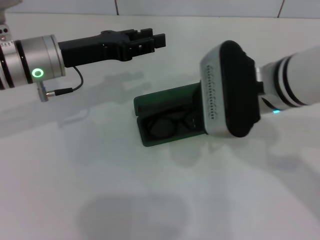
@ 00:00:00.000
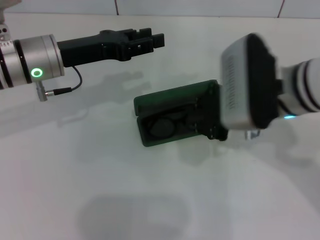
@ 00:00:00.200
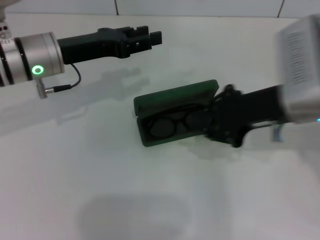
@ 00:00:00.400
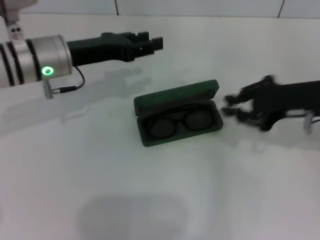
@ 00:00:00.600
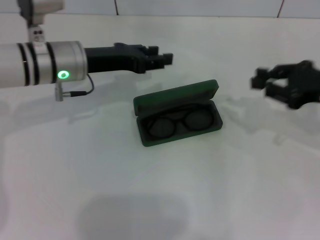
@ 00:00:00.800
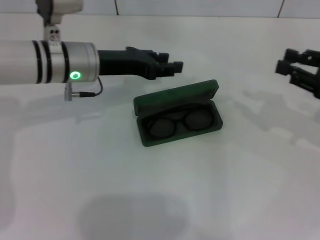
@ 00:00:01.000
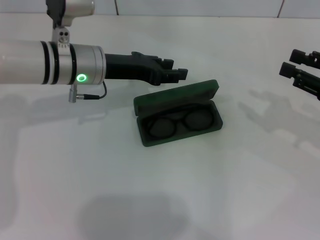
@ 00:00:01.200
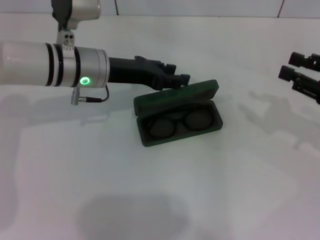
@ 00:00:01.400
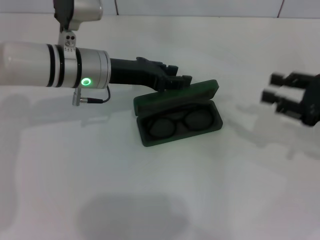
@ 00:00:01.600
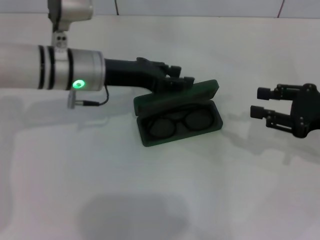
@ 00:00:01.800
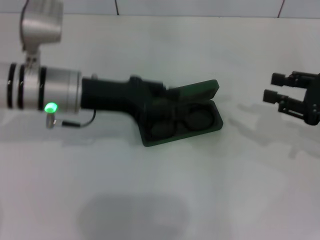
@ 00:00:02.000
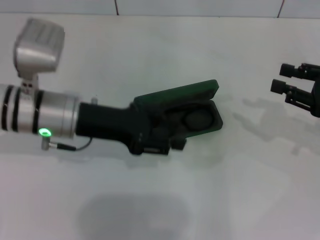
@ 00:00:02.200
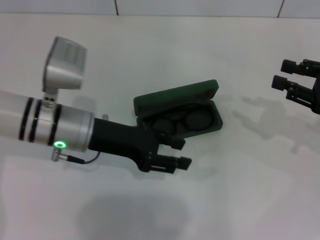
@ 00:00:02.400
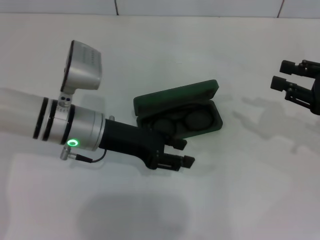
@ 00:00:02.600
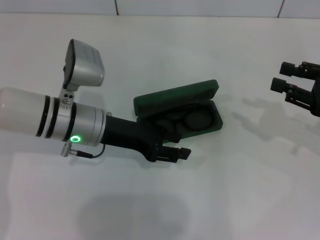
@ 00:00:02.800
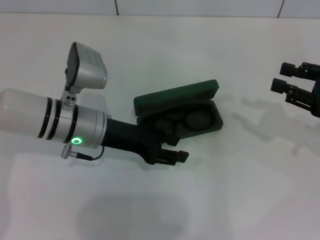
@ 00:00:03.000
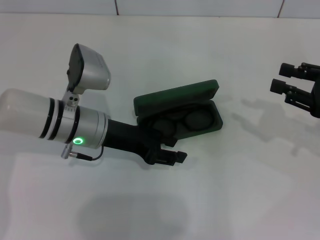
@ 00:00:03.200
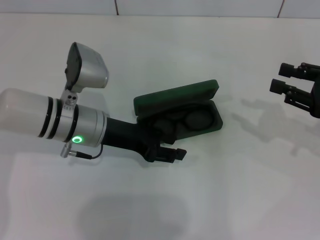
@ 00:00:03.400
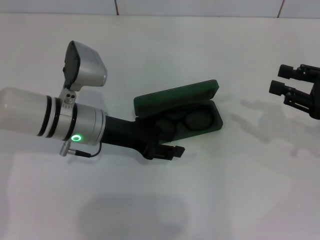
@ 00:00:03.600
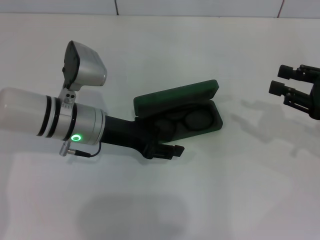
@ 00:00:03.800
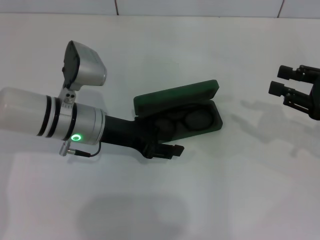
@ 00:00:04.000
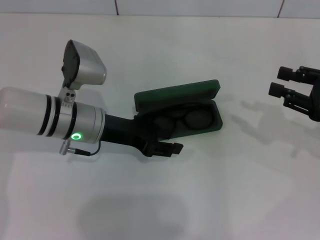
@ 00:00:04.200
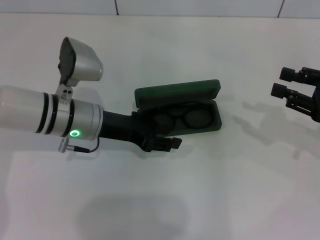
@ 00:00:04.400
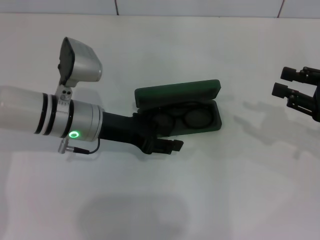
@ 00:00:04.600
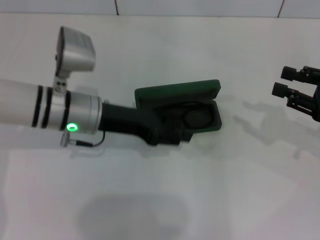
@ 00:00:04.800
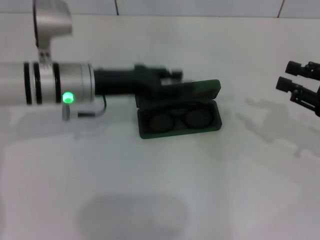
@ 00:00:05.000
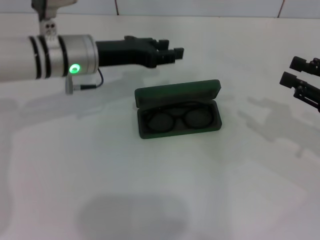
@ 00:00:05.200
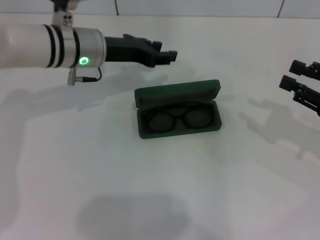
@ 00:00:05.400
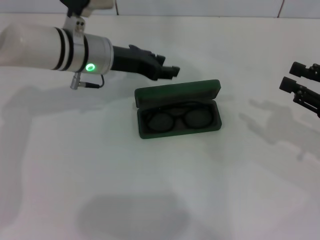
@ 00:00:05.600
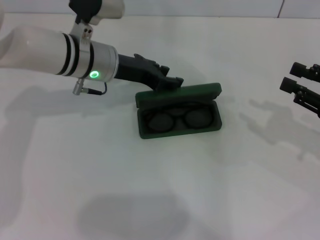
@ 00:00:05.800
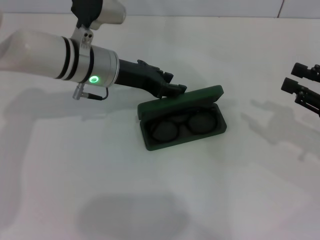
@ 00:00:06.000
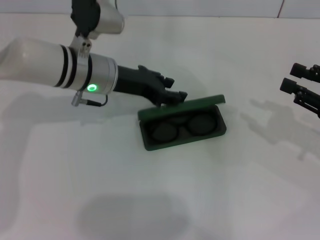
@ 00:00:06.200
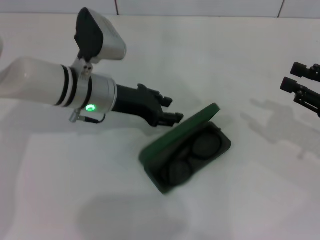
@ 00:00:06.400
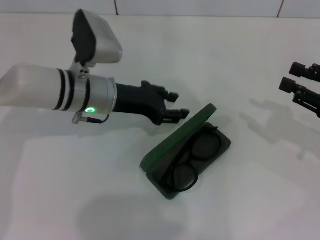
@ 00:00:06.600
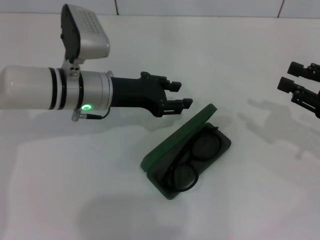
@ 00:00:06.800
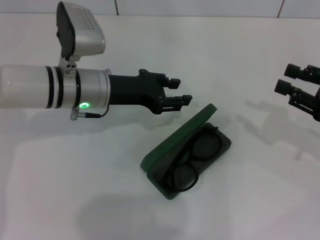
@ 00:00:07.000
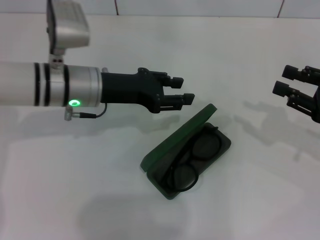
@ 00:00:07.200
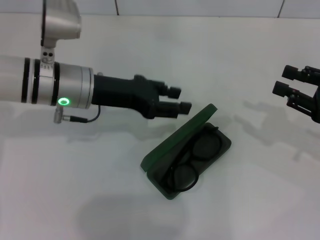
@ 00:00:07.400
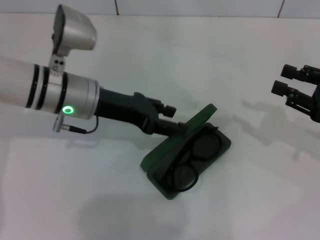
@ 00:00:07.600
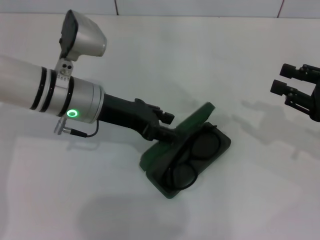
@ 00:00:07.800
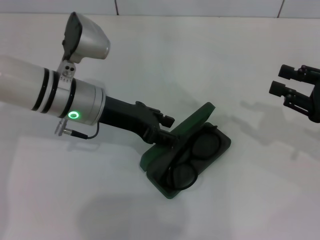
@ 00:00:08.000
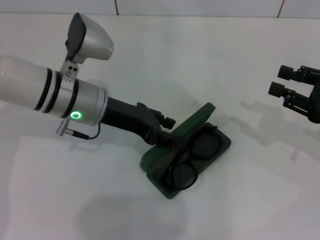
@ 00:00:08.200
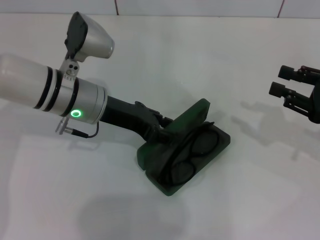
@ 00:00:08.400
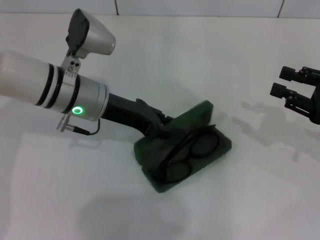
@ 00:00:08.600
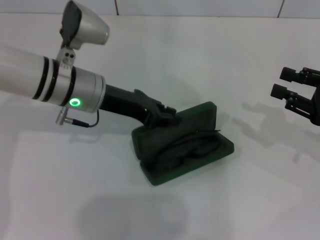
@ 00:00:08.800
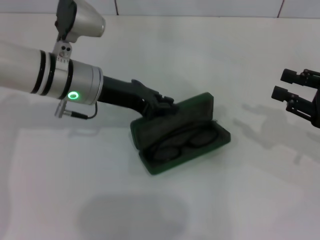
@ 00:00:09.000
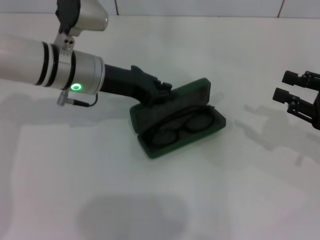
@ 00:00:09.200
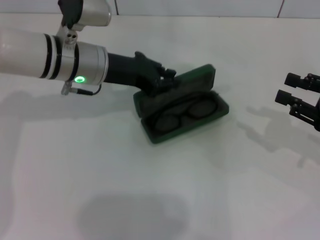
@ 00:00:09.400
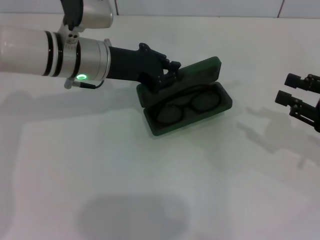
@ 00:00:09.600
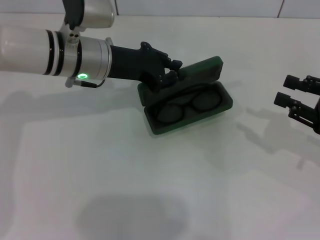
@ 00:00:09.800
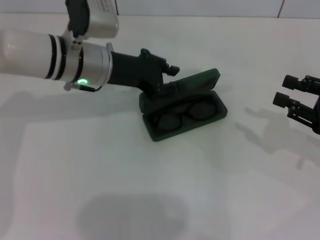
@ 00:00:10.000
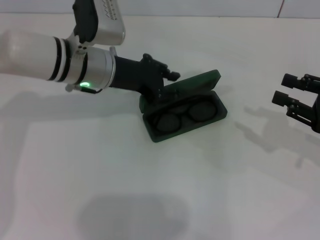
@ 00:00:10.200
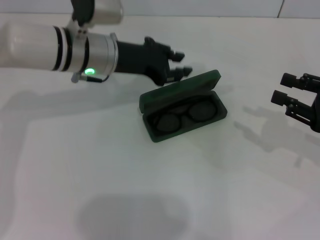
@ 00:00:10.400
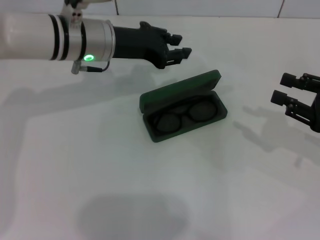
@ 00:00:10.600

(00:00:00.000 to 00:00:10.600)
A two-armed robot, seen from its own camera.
00:00:00.000 - 00:00:01.600: The left gripper shifts about 5 cm to the right; the right gripper shifts about 20 cm to the right.
00:00:01.600 - 00:00:03.000: The left gripper shifts roughly 5 cm backward.
00:00:03.000 - 00:00:04.600: The grippers stay close to where they were, moving slightly.
00:00:04.600 - 00:00:06.000: The left gripper travels forward by about 5 cm.
00:00:06.000 - 00:00:07.600: The left gripper shifts by approximately 5 cm.
00:00:07.600 - 00:00:09.000: The left gripper closes.

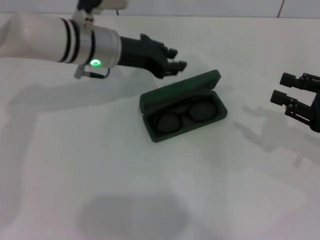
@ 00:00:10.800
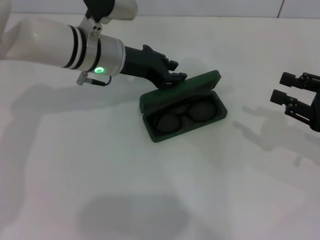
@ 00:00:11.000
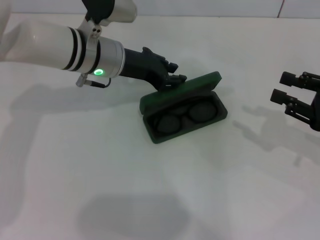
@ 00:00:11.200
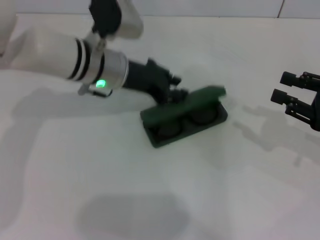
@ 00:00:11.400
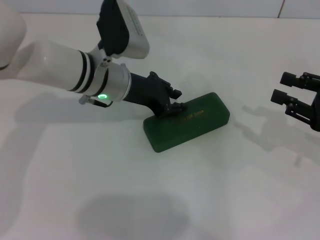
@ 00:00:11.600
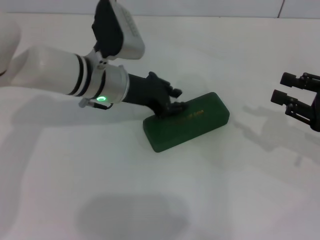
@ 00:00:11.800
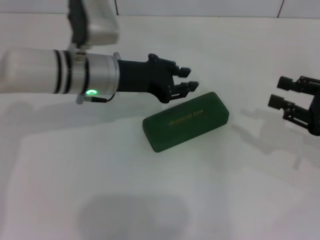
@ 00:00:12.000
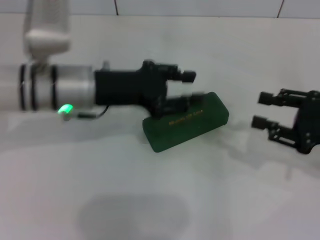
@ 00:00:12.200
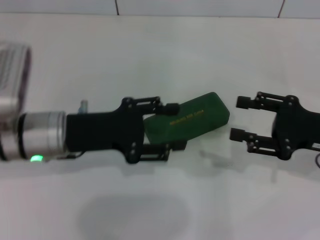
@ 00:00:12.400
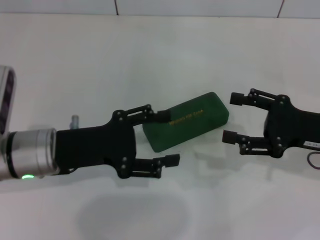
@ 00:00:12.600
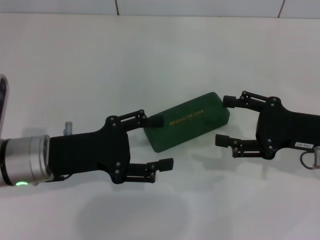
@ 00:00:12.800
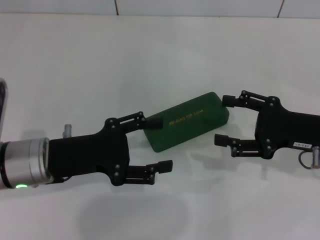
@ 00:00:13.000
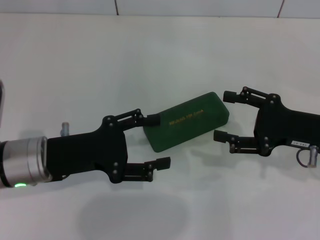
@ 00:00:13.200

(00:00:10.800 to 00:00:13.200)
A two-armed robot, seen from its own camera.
00:00:10.800 - 00:00:12.000: The grippers stay close to where they were, moving slightly.
00:00:12.000 - 00:00:13.200: The left gripper travels backward and to the left by some 15 cm, and opens its fingers. Meanwhile the right gripper shifts roughly 5 cm to the left, and opens.
